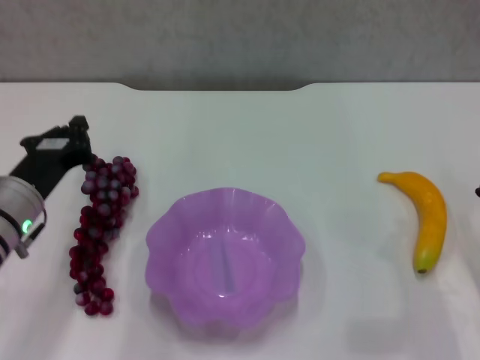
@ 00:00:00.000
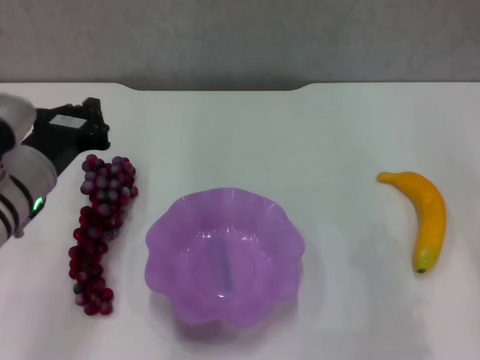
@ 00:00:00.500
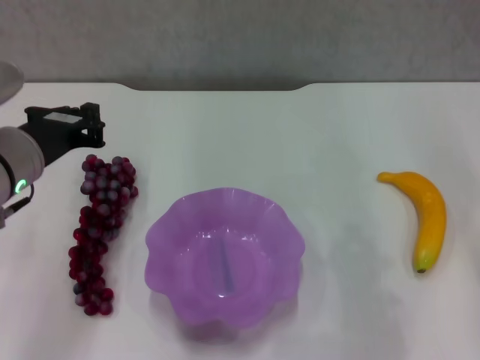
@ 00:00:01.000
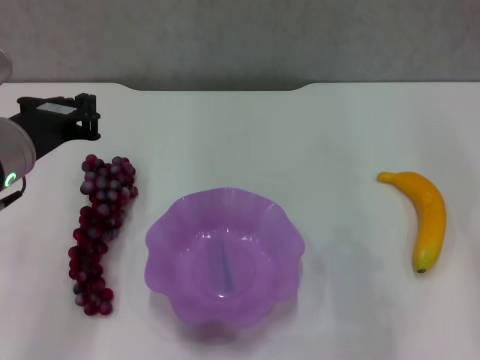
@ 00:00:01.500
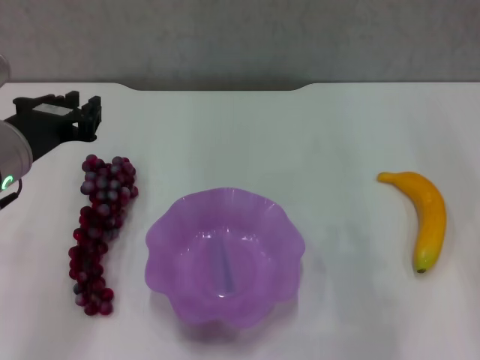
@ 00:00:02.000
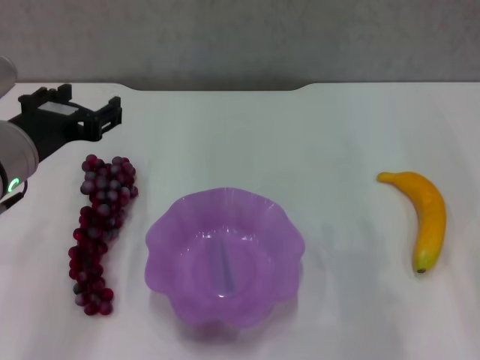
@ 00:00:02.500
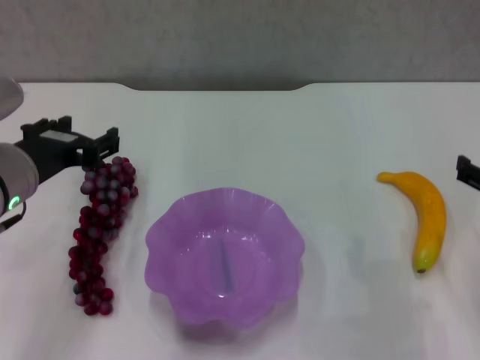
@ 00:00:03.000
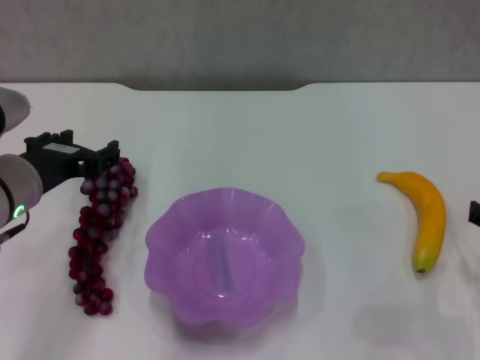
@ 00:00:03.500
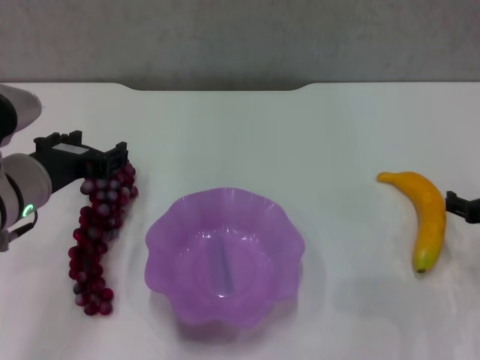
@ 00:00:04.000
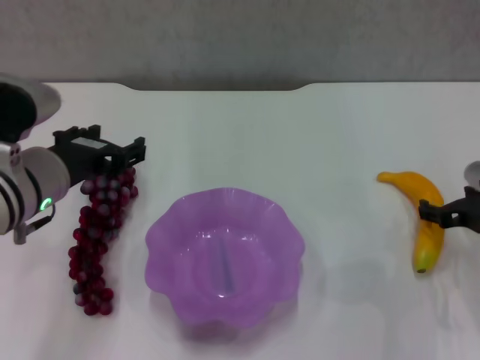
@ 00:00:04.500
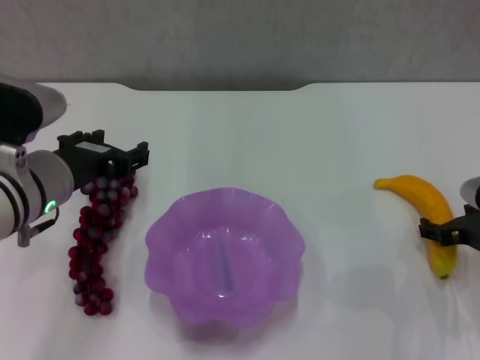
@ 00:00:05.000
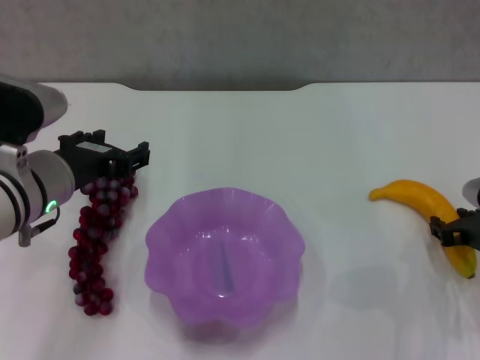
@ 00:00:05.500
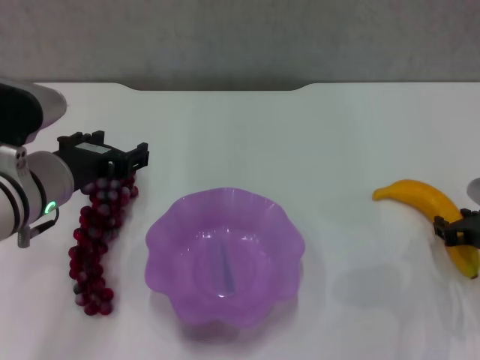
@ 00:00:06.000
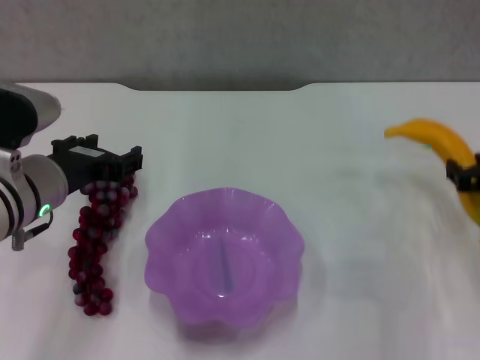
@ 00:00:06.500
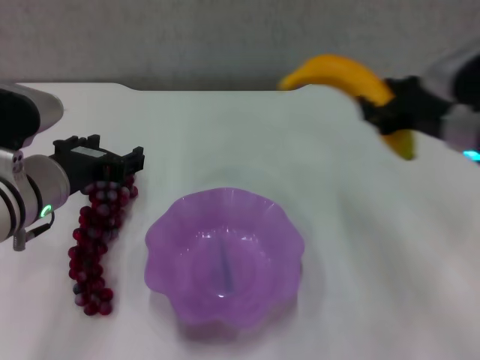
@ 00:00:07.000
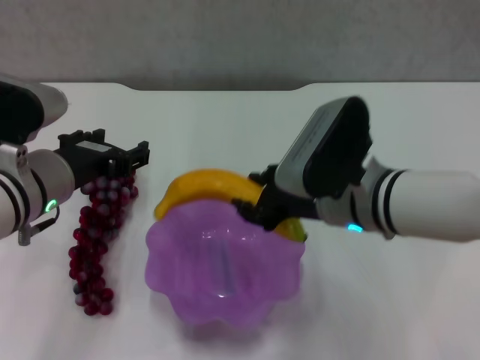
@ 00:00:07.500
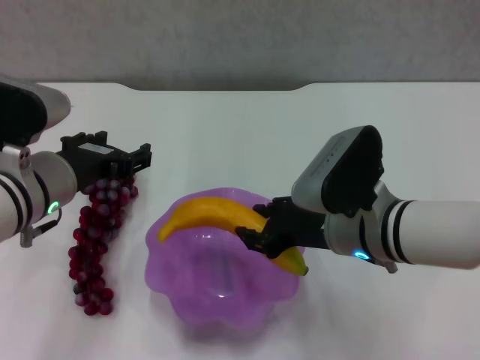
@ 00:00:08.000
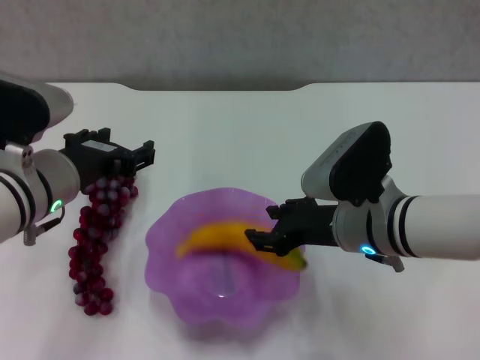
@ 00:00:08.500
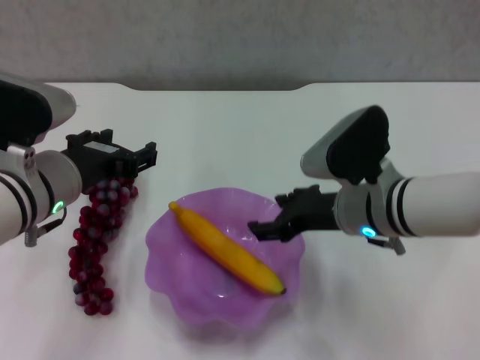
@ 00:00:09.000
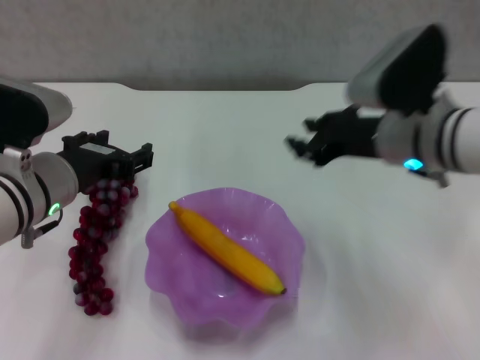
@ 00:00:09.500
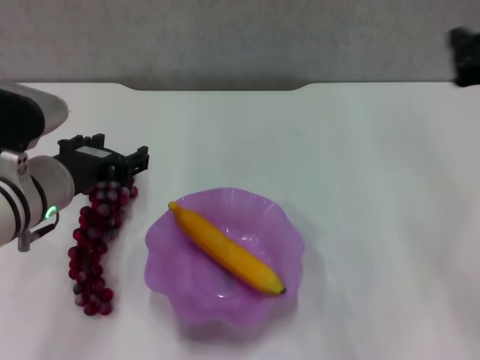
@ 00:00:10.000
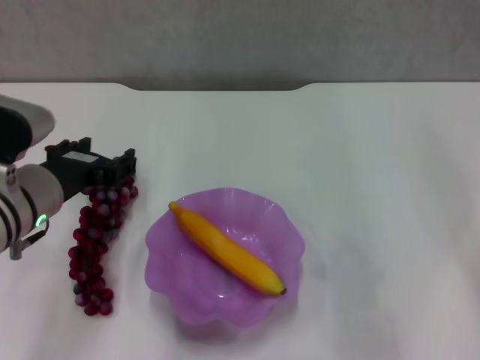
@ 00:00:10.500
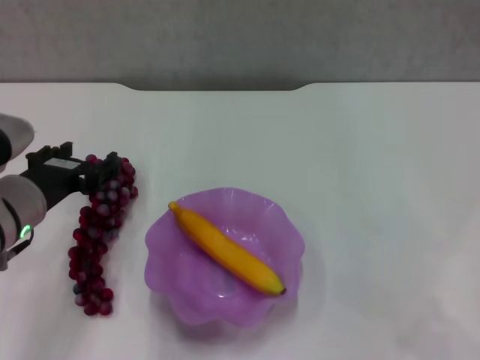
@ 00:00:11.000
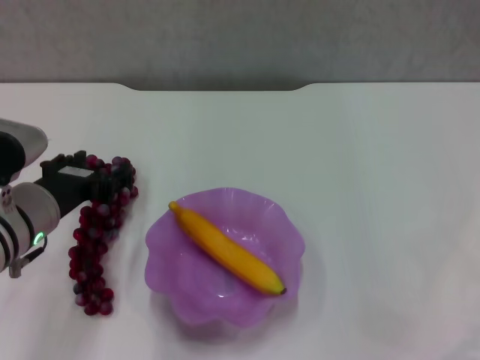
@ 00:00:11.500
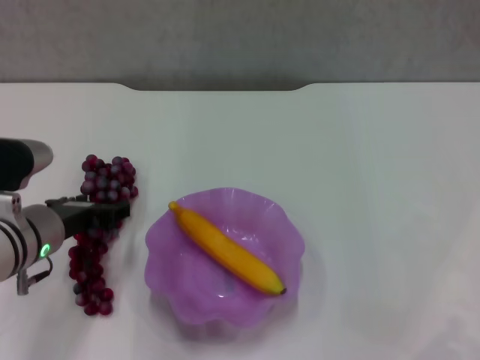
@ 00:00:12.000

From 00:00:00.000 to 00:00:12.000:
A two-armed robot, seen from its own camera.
Step, from 00:00:00.000 to 00:00:05.500: Grasp the banana with right gripper.
Step, from 00:00:06.000 to 00:00:08.500: Place the banana in the purple plate with right gripper.
From 00:00:00.000 to 00:00:02.000: The two grippers go approximately 10 cm upward.
From 00:00:02.000 to 00:00:04.000: The right gripper goes roughly 15 cm downward, and opens its fingers. The left gripper opens.
From 00:00:04.000 to 00:00:06.000: The right gripper closes its fingers.
From 00:00:06.000 to 00:00:08.000: The right gripper is displaced to the left by approximately 20 cm.
From 00:00:08.000 to 00:00:10.000: The right gripper heads to the right and upward, covering approximately 20 cm, and closes its fingers.
From 00:00:10.000 to 00:00:12.000: The left gripper travels downward by roughly 5 cm; the right gripper goes approximately 25 cm backward and downward.

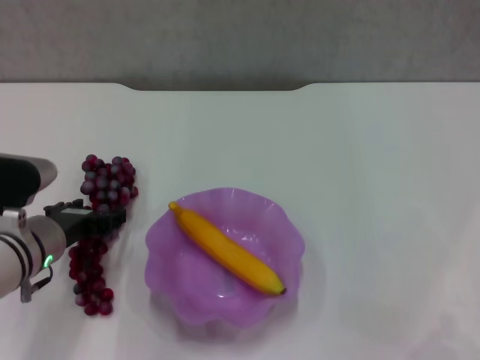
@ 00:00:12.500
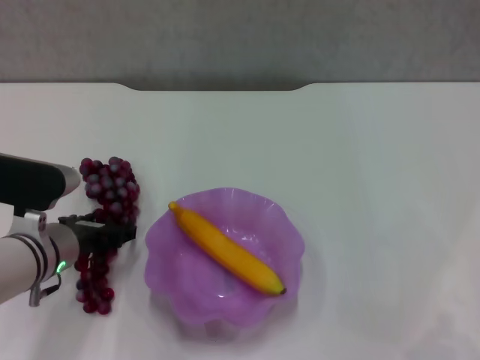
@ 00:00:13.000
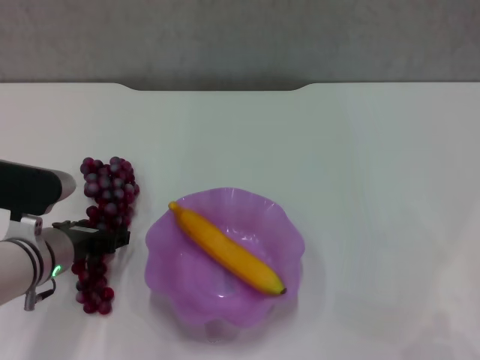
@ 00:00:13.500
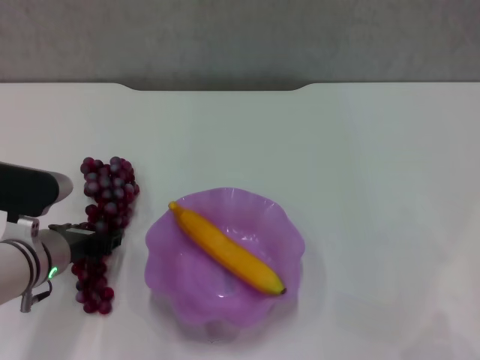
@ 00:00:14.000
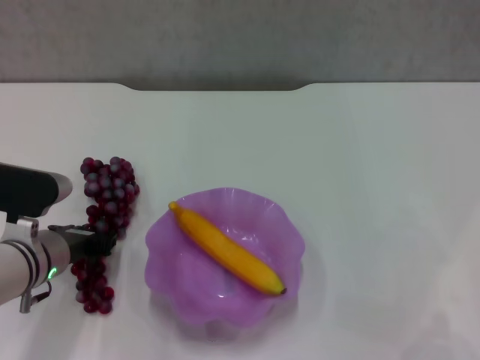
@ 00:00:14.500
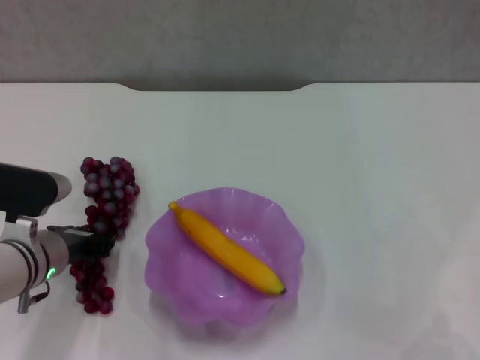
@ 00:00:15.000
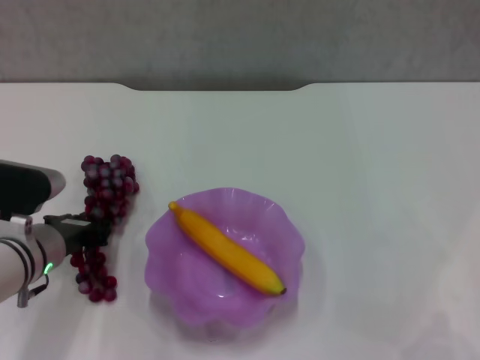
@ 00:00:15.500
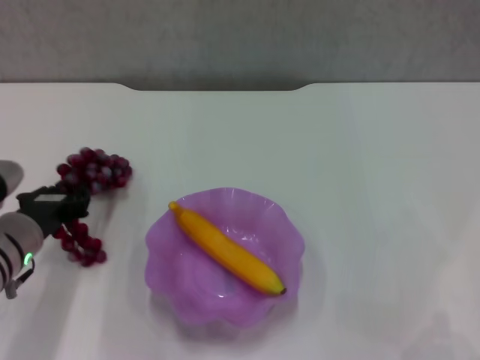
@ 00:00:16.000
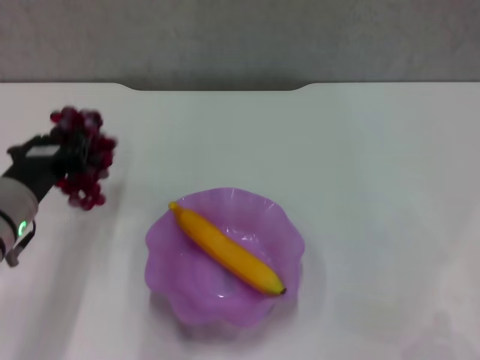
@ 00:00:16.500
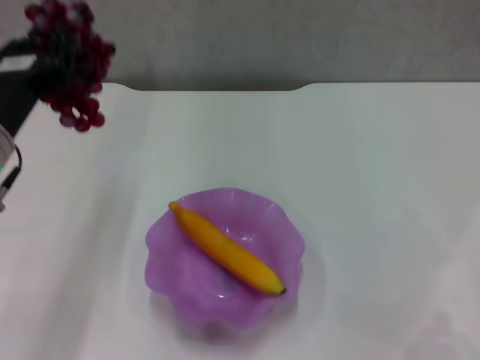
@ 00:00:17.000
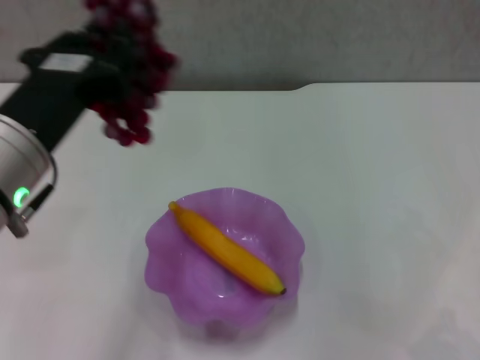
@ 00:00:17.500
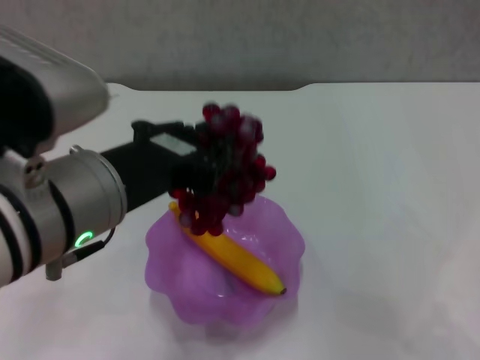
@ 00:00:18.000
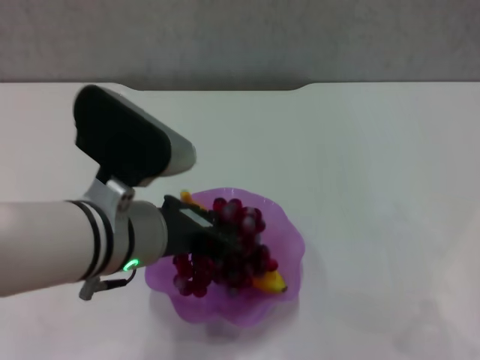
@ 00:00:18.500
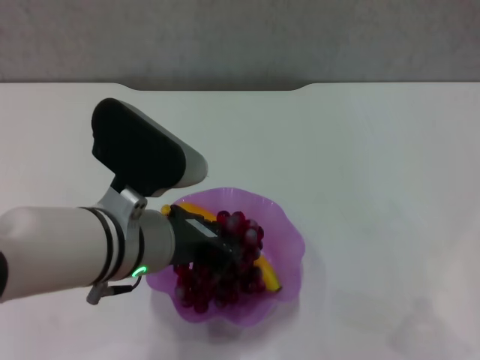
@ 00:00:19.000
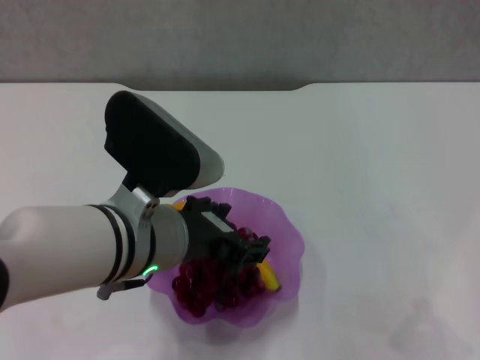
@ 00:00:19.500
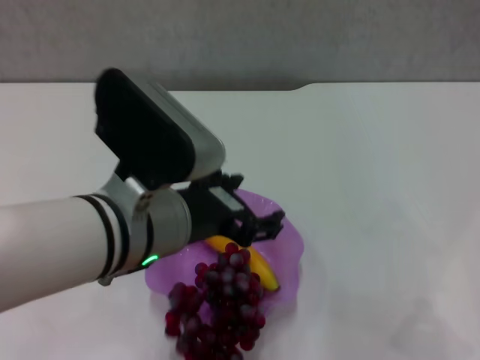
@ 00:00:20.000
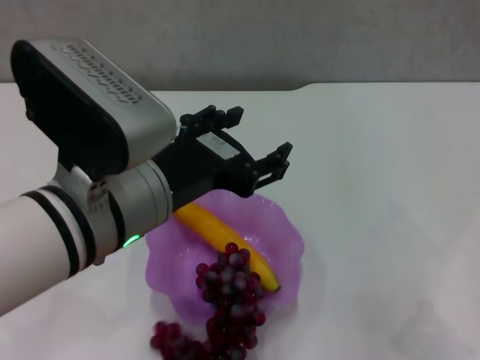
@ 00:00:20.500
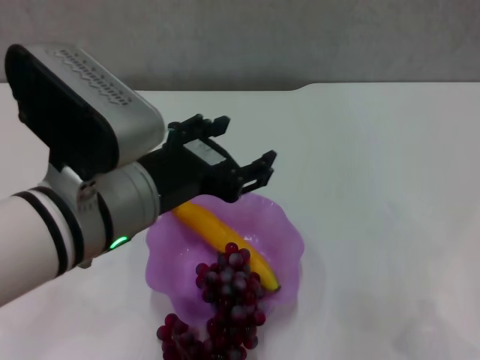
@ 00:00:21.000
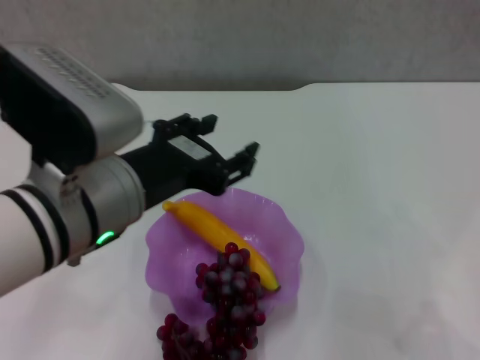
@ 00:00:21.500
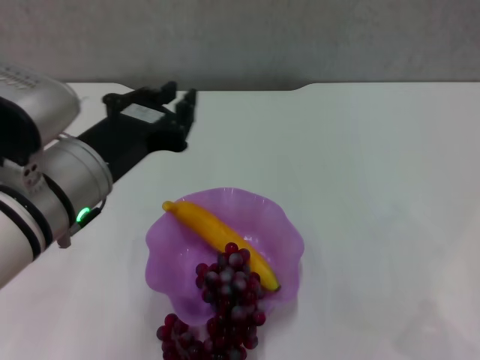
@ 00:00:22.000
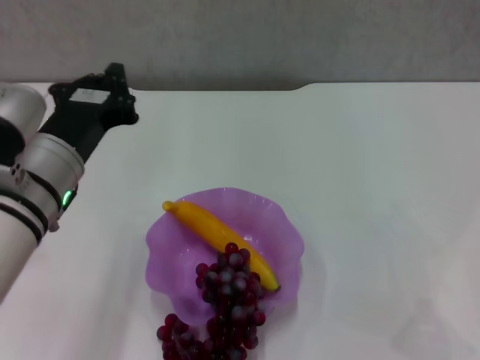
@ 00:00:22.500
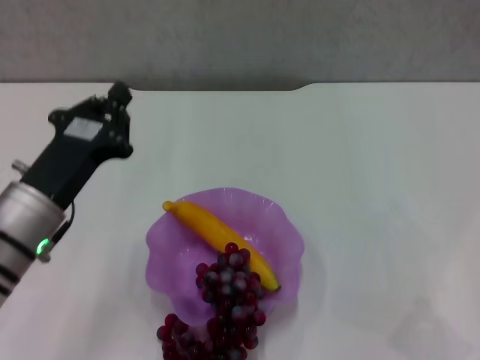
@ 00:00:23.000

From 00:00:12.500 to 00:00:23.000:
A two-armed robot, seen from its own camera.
Step, from 00:00:12.500 to 00:00:14.500: Grasp the grape with left gripper.
Step, from 00:00:15.500 to 00:00:20.000: Place the grape in the purple plate with left gripper.
From 00:00:12.500 to 00:00:14.500: The left gripper closes.
From 00:00:14.500 to 00:00:16.500: The left gripper goes roughly 5 cm upward.
From 00:00:16.500 to 00:00:19.000: The left gripper is displaced to the right and upward by about 15 cm.
From 00:00:19.000 to 00:00:21.000: The left gripper changes place by roughly 5 cm, and opens.
From 00:00:21.000 to 00:00:23.000: The left gripper is displaced downward and to the left by approximately 15 cm, and closes up.

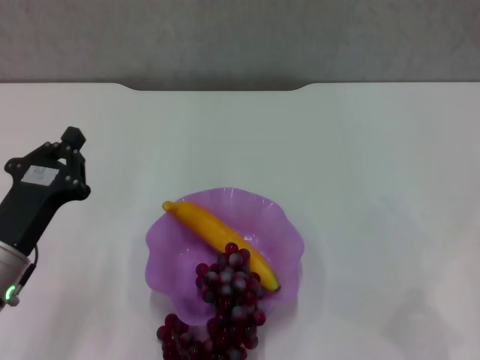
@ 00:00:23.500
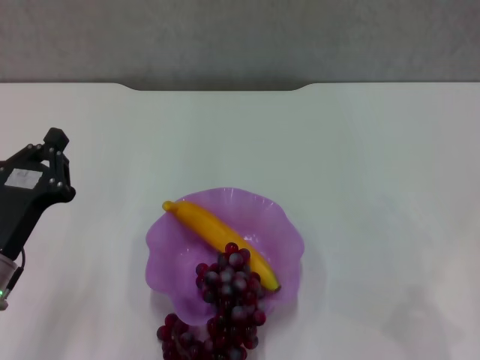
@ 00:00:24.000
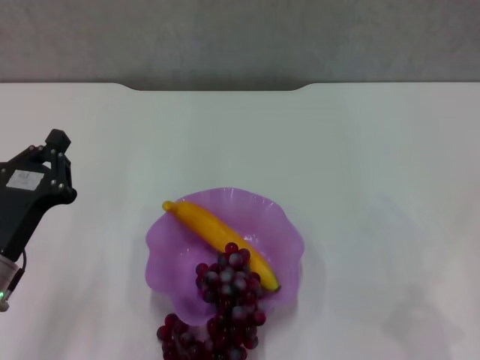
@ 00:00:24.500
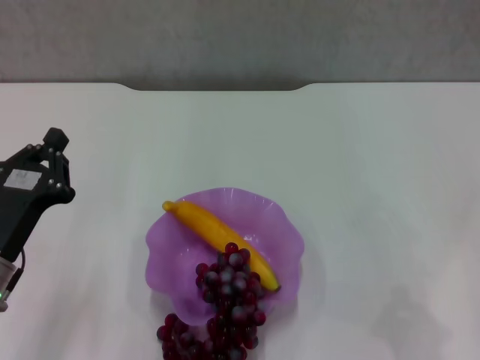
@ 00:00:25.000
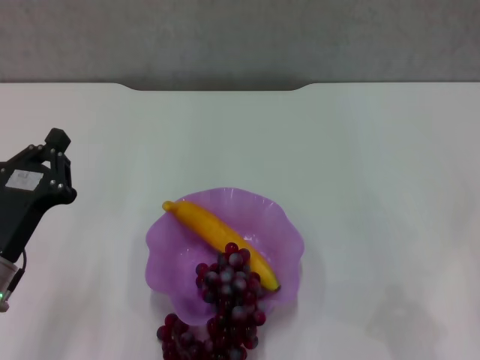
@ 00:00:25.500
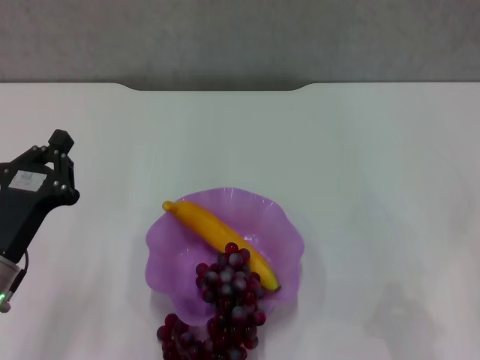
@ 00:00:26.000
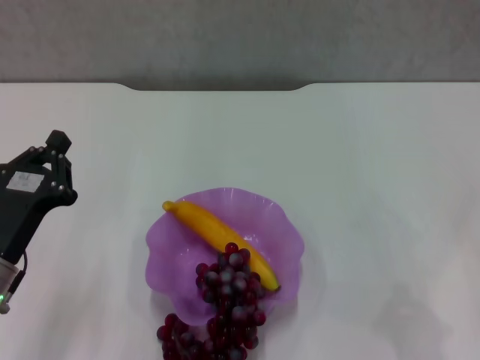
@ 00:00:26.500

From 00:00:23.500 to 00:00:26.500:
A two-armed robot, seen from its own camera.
From 00:00:23.500 to 00:00:25.000: The two grippers keep their place.
From 00:00:25.000 to 00:00:26.500: Neither gripper changes place.
